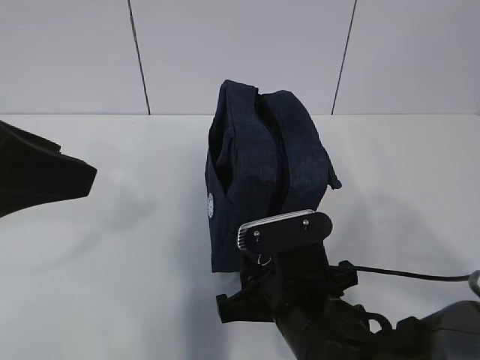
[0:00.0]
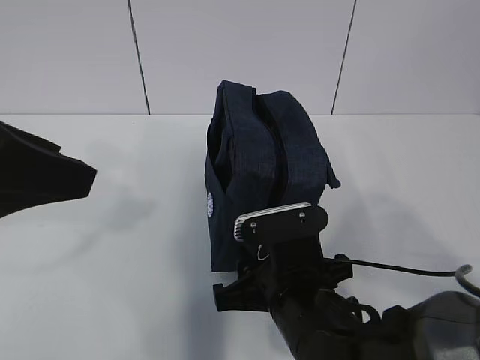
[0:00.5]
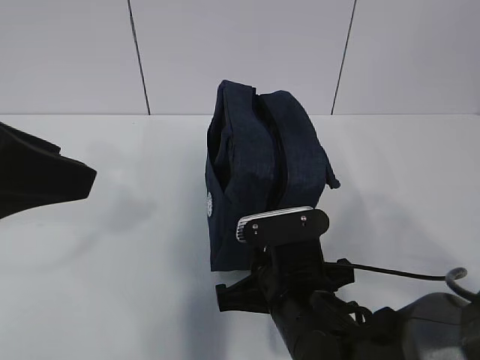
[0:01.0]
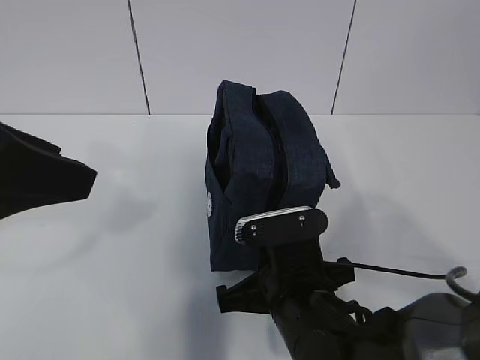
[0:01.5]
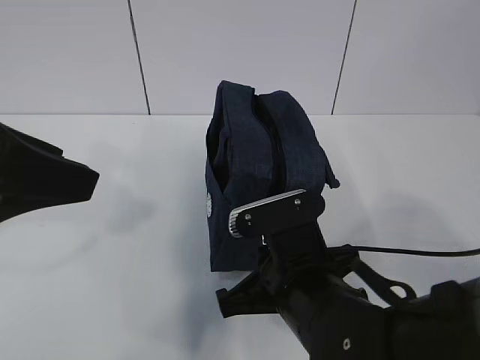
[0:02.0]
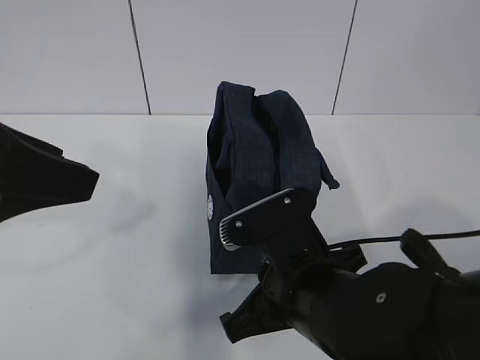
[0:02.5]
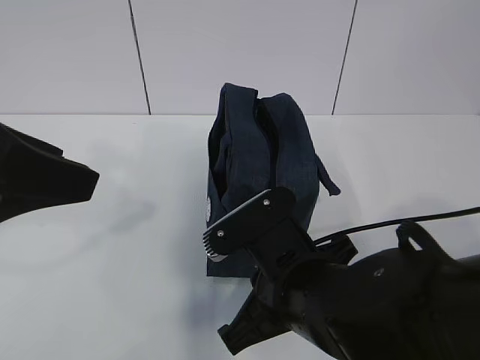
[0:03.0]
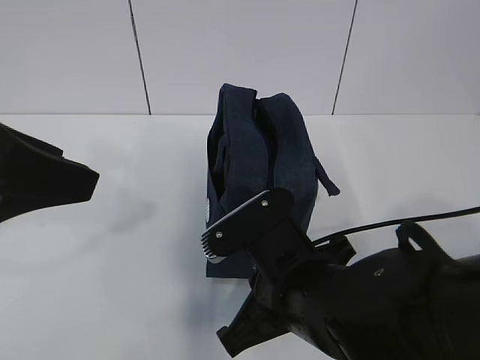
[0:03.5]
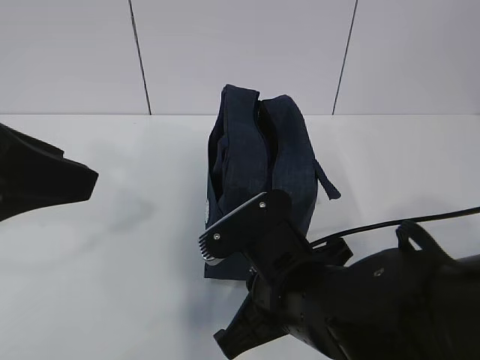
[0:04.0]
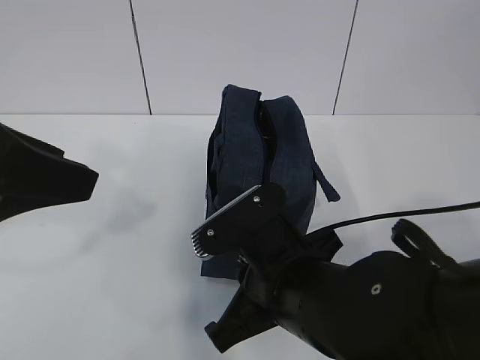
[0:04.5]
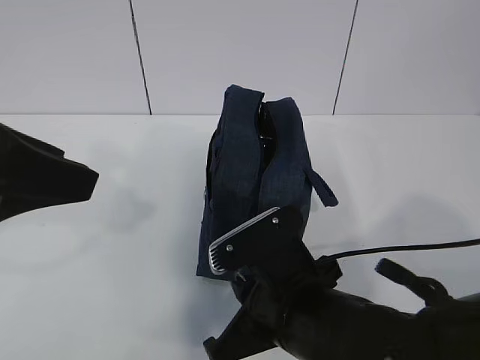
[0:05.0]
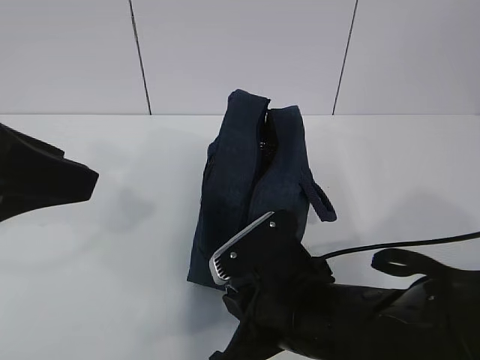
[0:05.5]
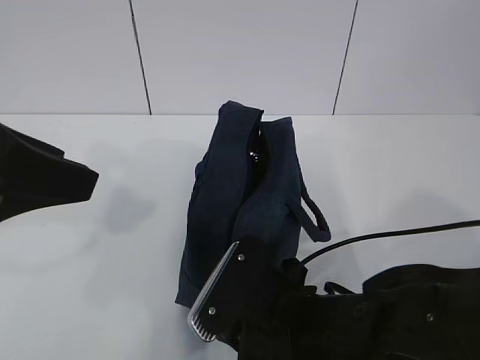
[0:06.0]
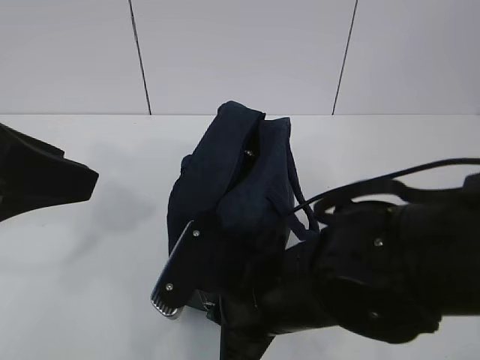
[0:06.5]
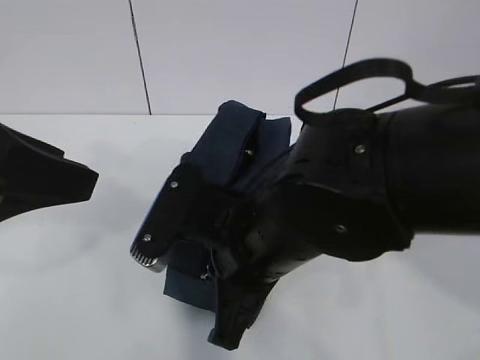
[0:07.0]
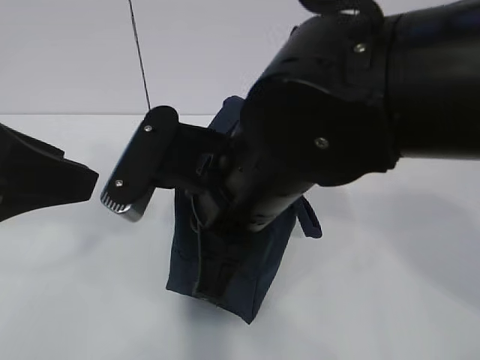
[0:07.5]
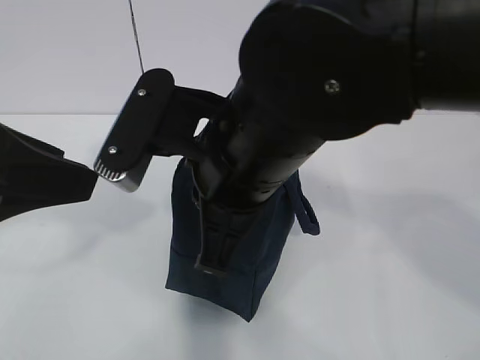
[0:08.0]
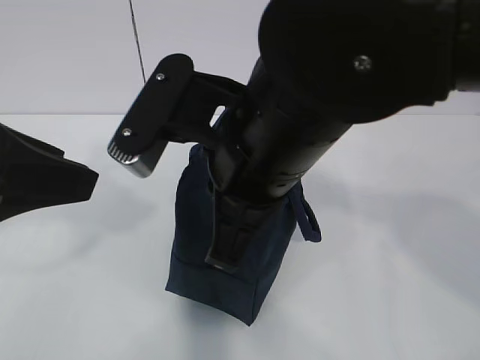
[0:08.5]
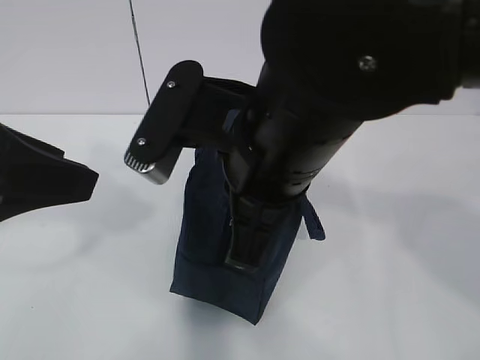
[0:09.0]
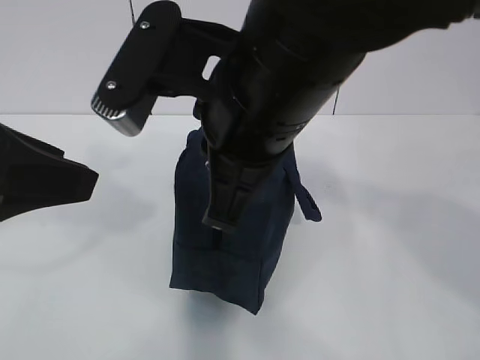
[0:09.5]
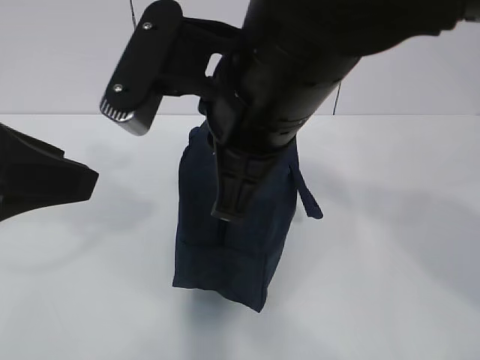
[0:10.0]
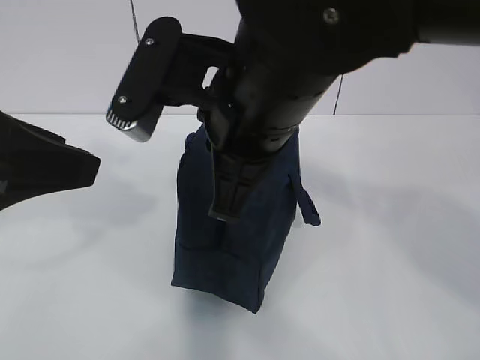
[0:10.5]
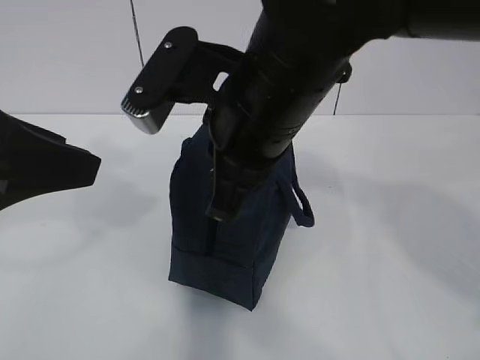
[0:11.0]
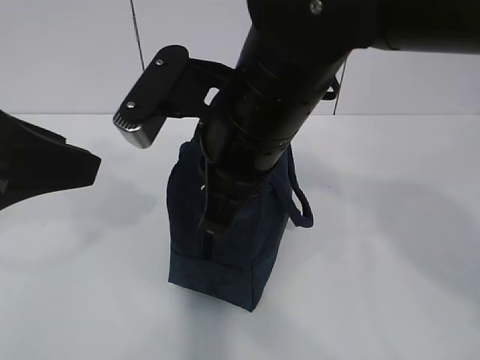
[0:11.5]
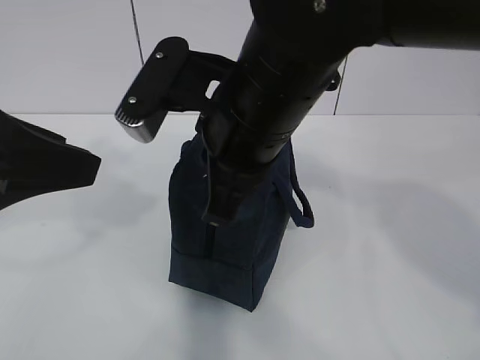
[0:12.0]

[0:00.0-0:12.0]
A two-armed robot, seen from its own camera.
0:00.0 to 0:02.0: The right gripper closes up.
0:06.0 to 0:08.0: The right gripper is displaced upward by about 15 cm.
0:10.0 to 0:12.0: There are only small adjustments of the grippers.

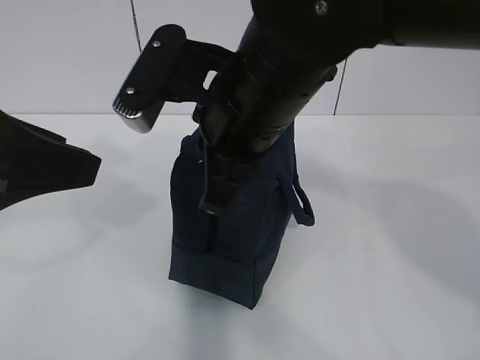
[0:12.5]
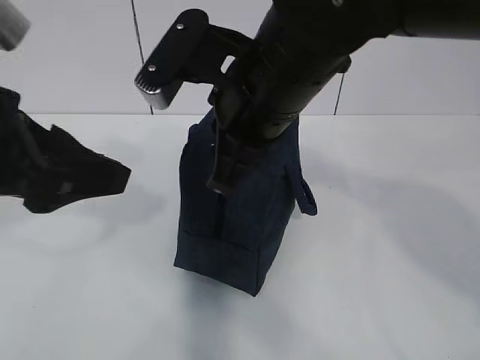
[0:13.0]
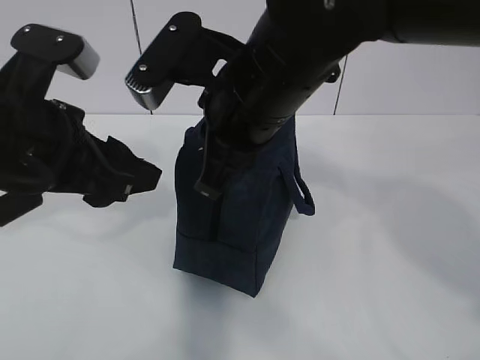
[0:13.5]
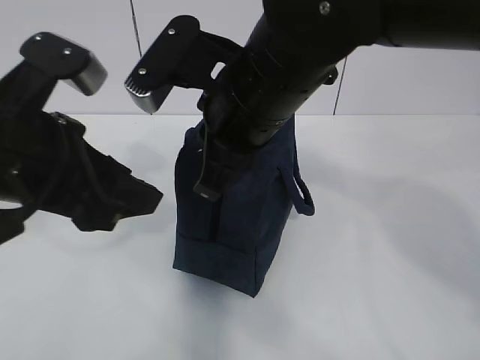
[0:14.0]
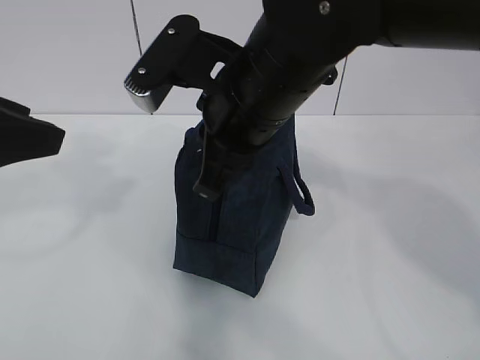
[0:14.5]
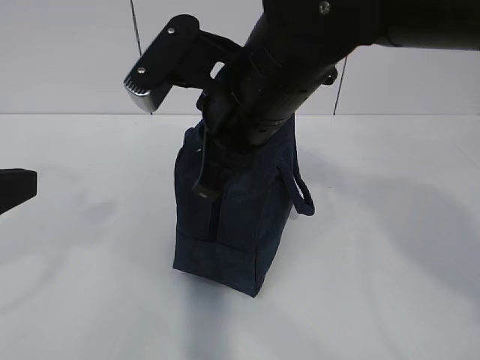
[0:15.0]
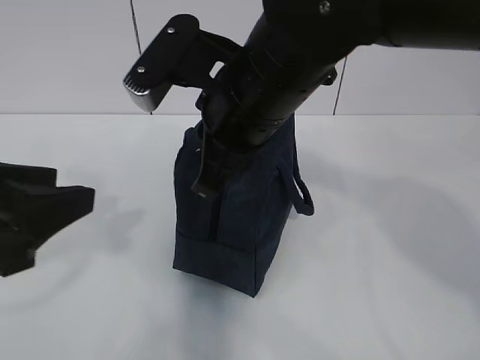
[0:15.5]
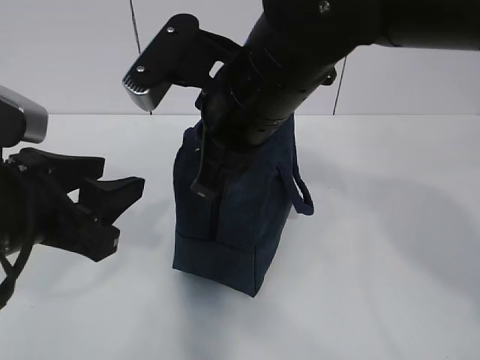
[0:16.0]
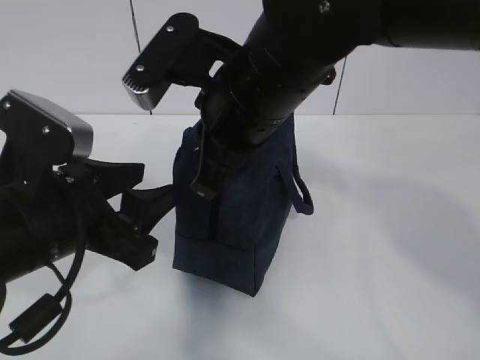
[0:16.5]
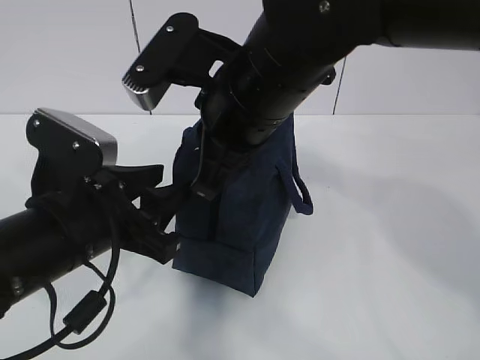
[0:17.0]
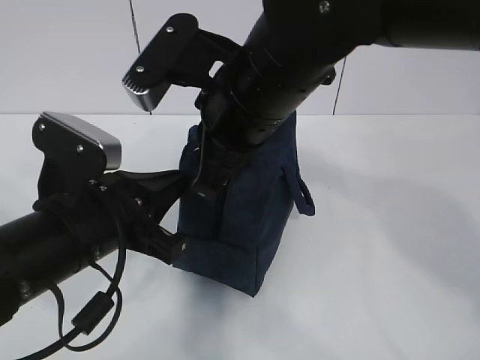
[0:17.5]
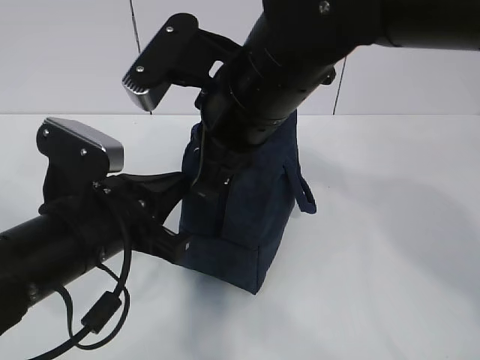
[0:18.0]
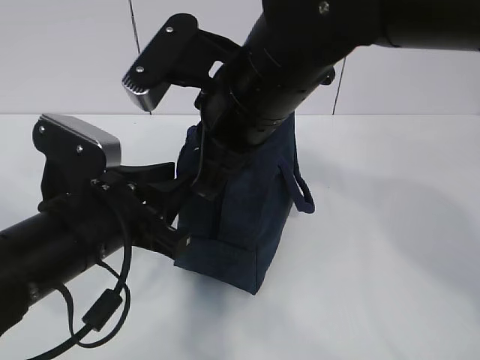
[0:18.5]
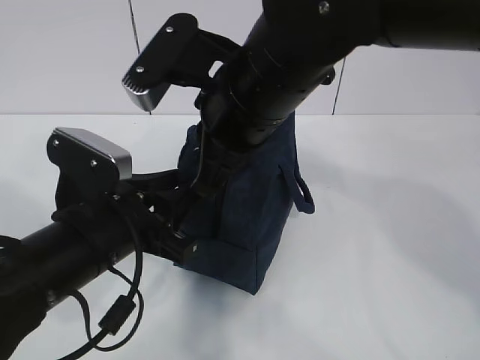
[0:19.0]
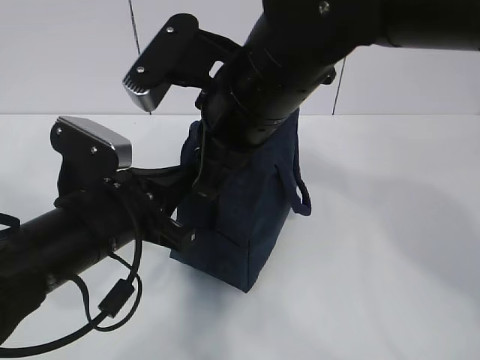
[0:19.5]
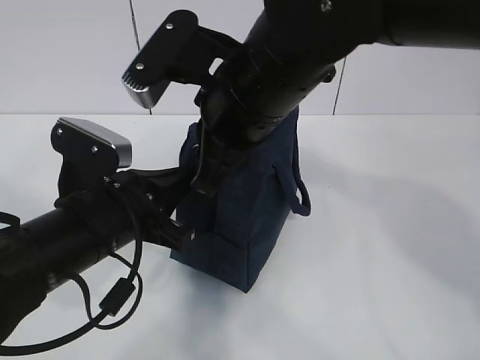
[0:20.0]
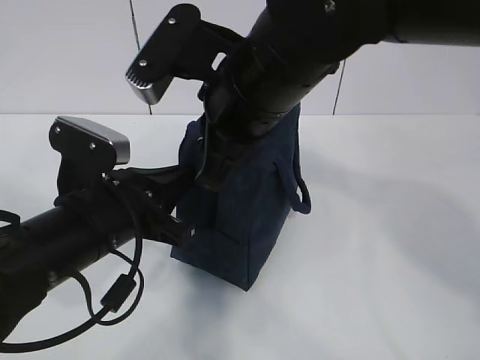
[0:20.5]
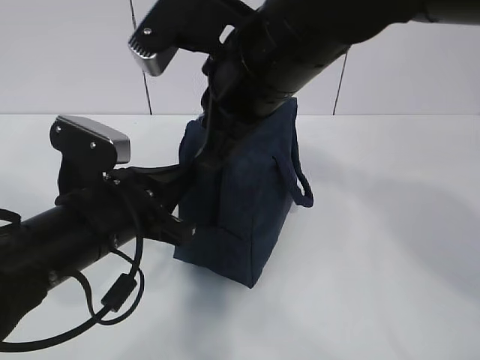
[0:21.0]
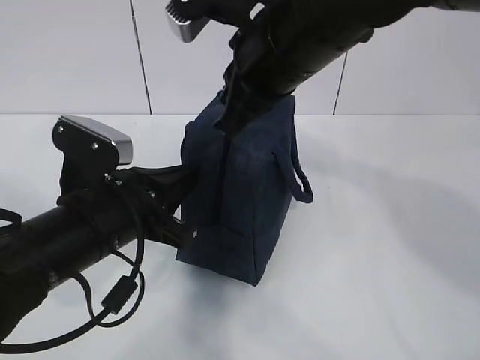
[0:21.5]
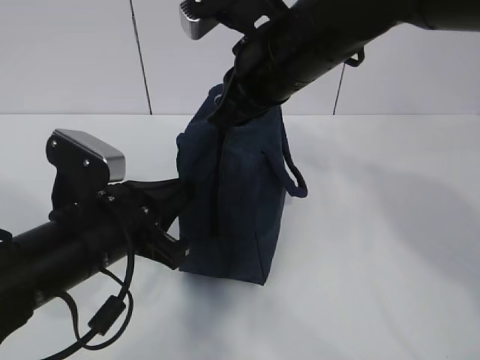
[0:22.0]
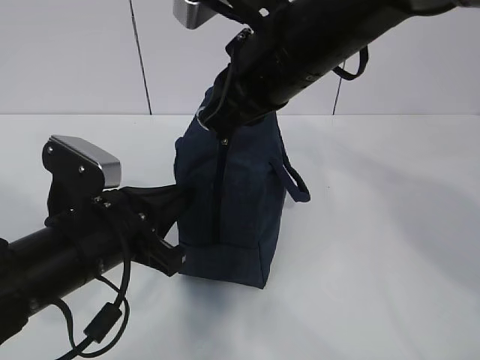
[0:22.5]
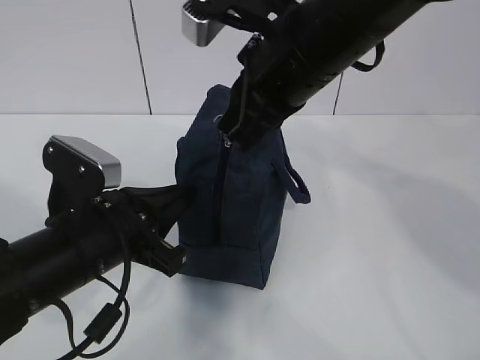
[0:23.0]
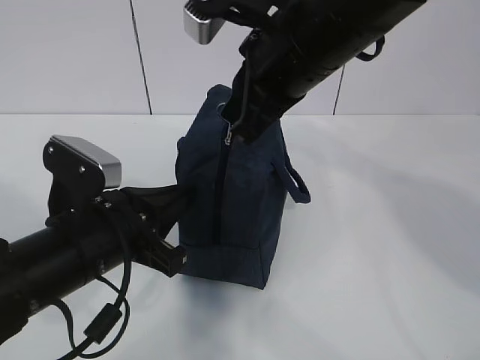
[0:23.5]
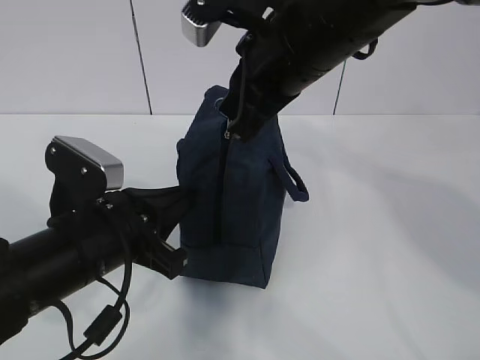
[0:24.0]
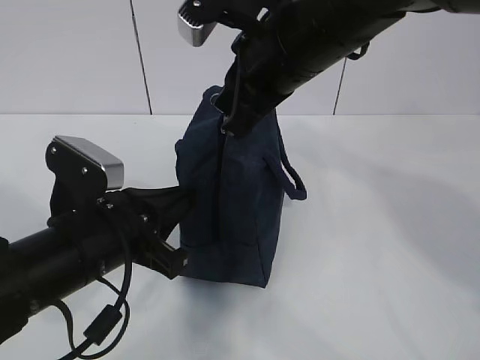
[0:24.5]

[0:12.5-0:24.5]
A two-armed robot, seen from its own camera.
Step, 0:12.5 to 0:15.0: Grab the lunch bag with your left hand.
Step, 0:15.5 to 0:22.0: Pull the zipper with your right hand.
0:14.5 to 0:16.5: The left gripper moves downward and to the right, about 15 cm.
0:16.5 to 0:18.5: The left gripper closes, then opens again.
0:18.5 to 0:20.5: The left gripper closes its fingers.
0:22.5 to 0:24.5: The grippers make only small movements.

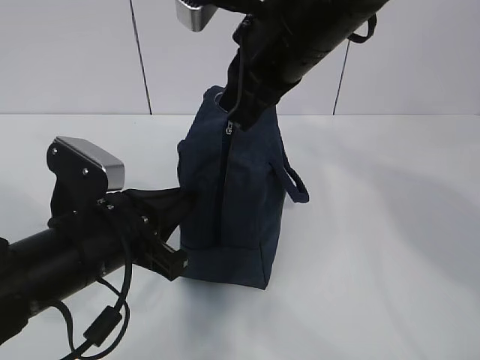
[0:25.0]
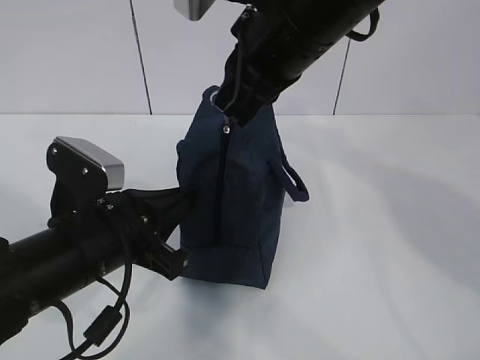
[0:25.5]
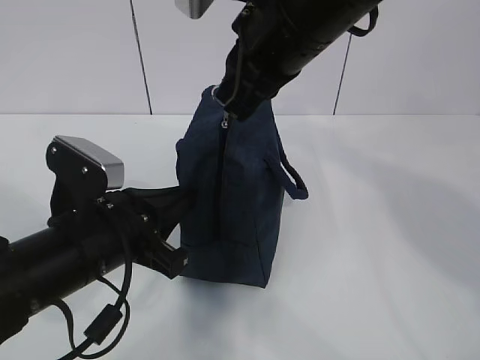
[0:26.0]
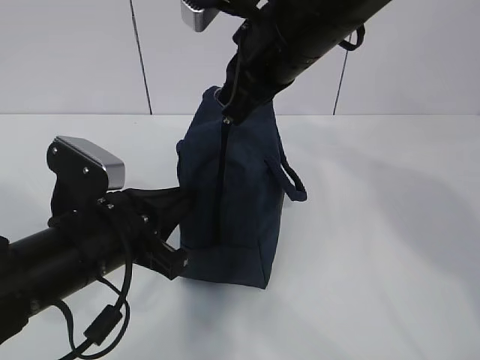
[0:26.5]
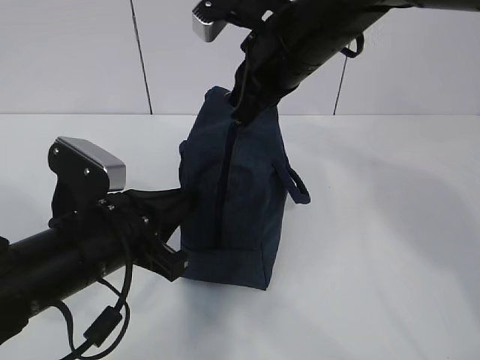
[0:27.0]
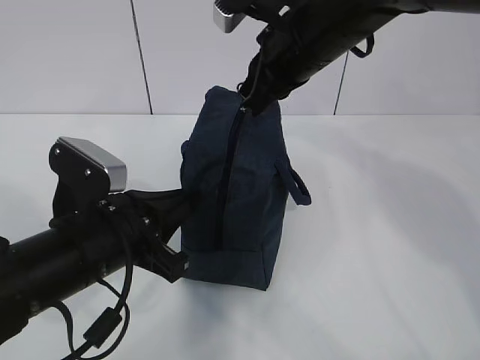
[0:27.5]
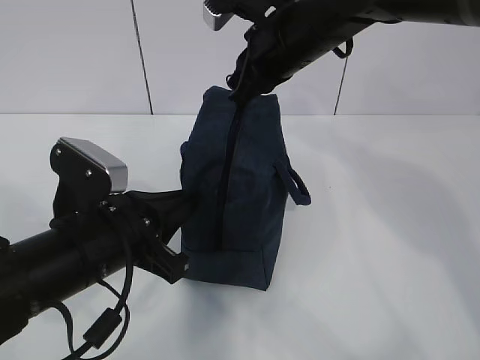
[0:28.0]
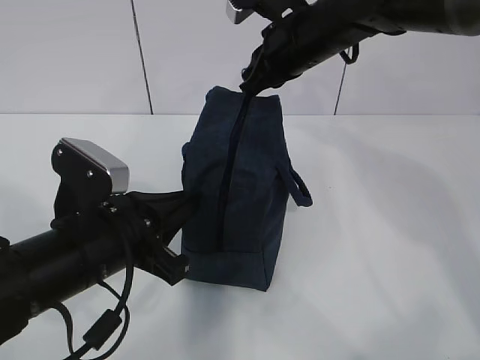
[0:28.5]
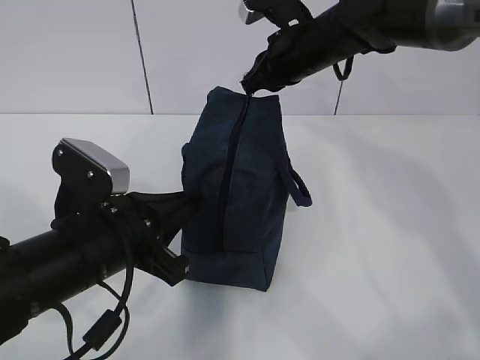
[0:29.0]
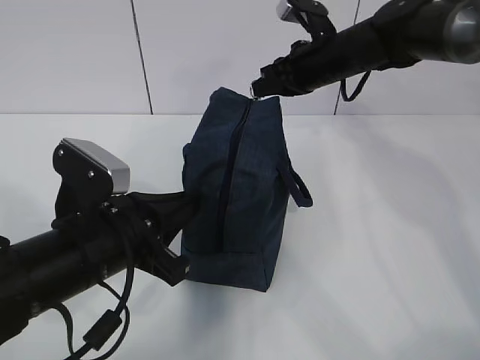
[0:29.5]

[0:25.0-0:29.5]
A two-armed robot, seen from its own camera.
0:25.0 to 0:27.0: The grippers stay close to where they were, moving slightly.
0:27.0 to 0:29.5: The right gripper shifts about 15 cm forward, to the right and downward.
